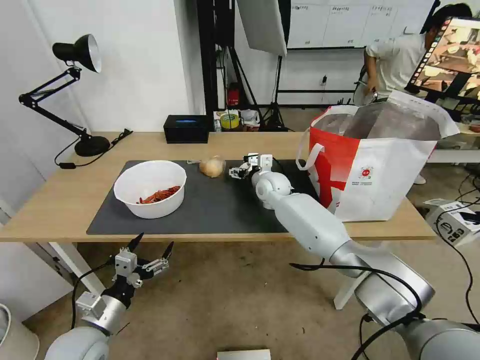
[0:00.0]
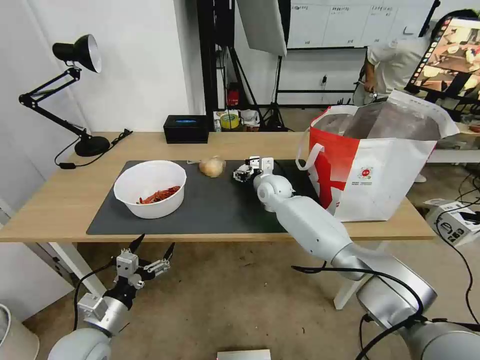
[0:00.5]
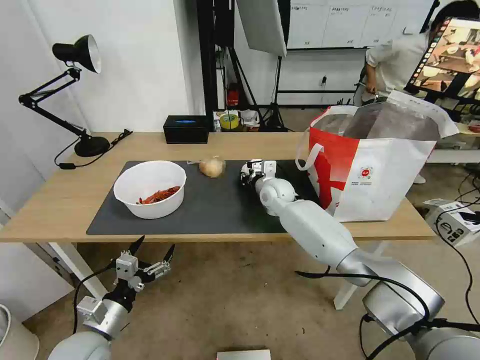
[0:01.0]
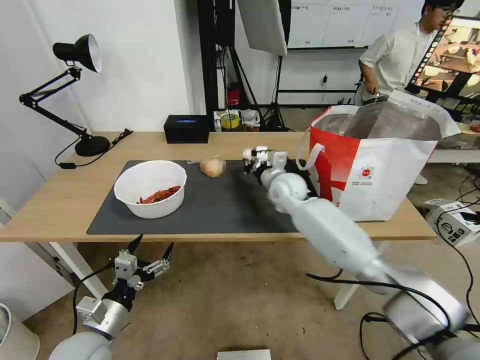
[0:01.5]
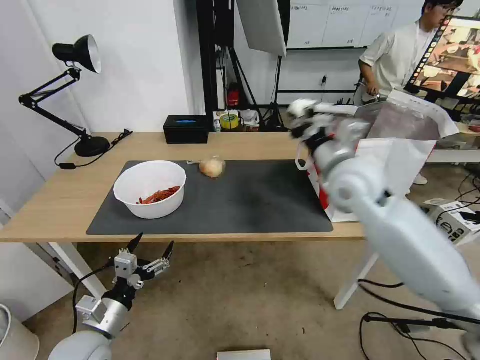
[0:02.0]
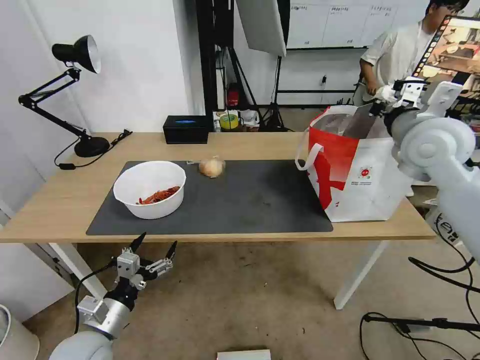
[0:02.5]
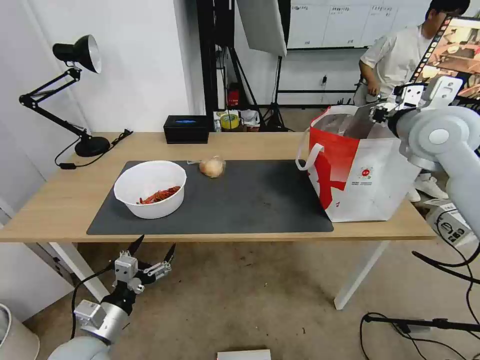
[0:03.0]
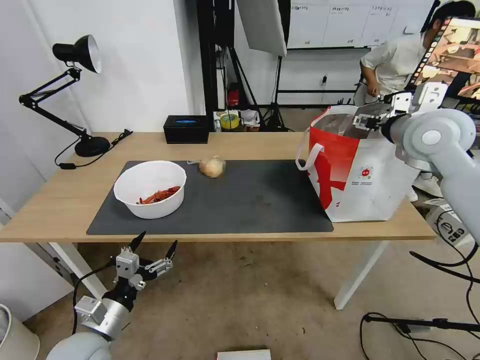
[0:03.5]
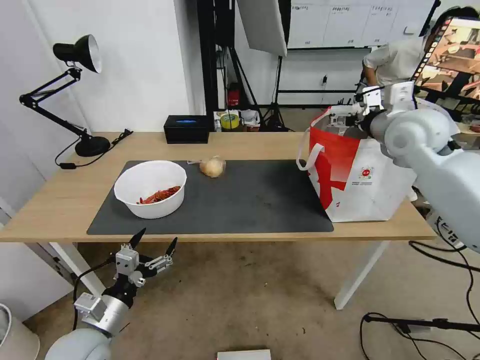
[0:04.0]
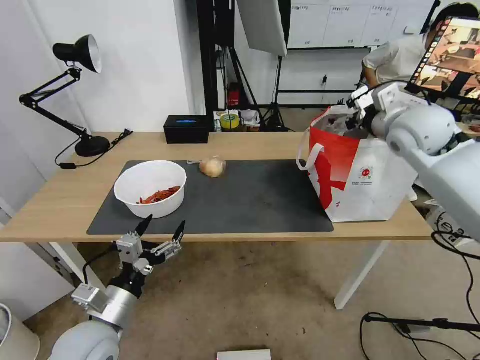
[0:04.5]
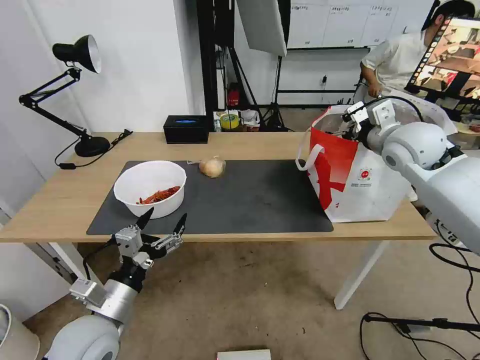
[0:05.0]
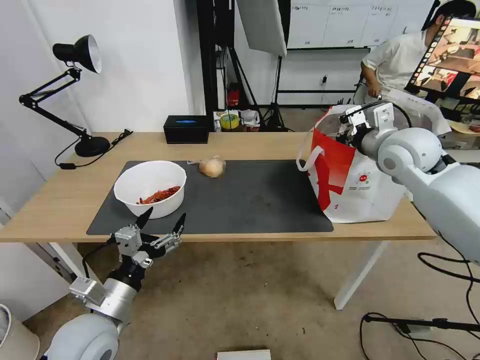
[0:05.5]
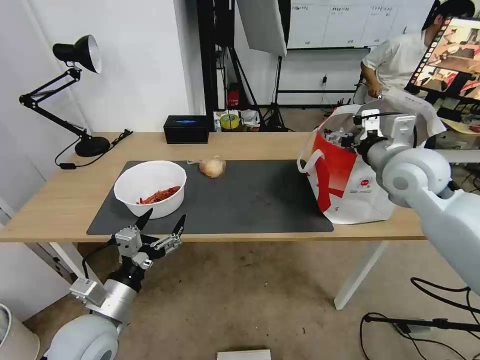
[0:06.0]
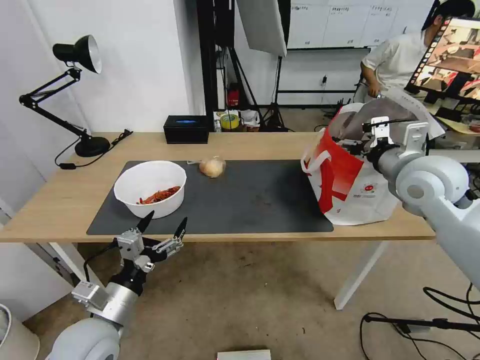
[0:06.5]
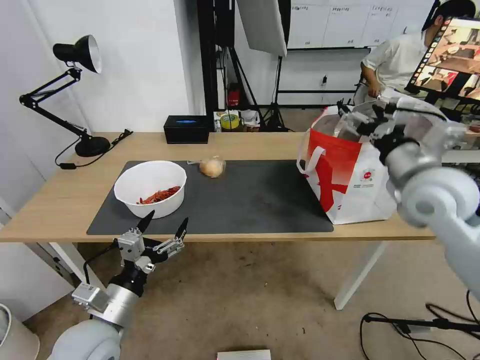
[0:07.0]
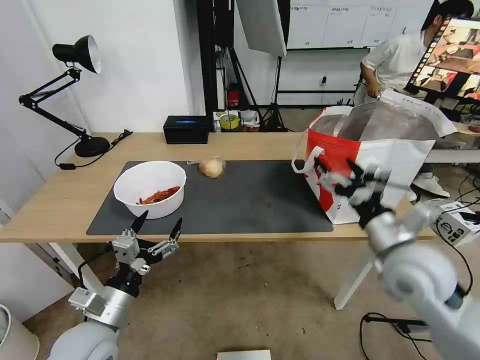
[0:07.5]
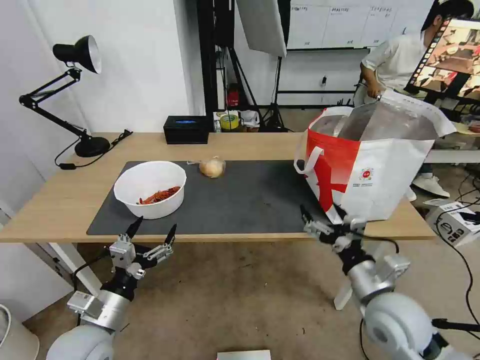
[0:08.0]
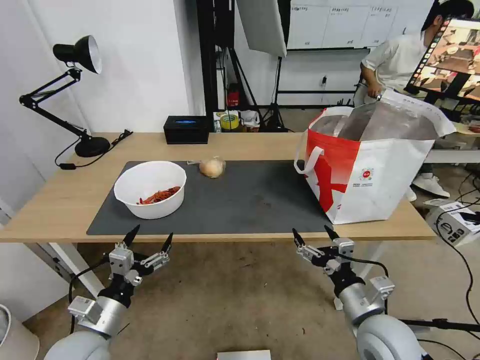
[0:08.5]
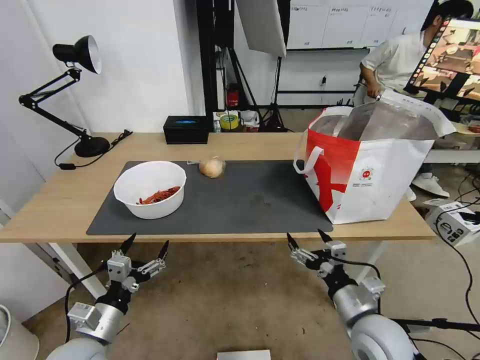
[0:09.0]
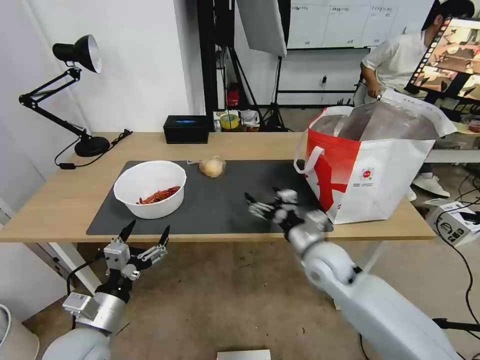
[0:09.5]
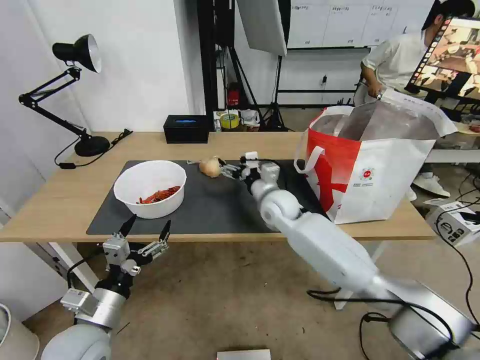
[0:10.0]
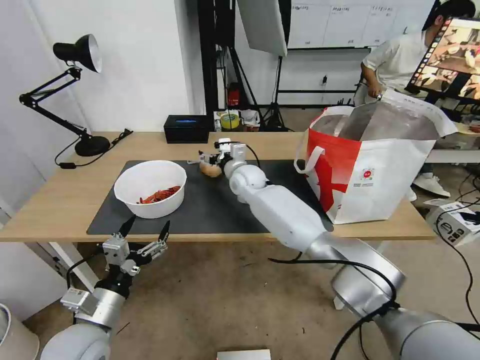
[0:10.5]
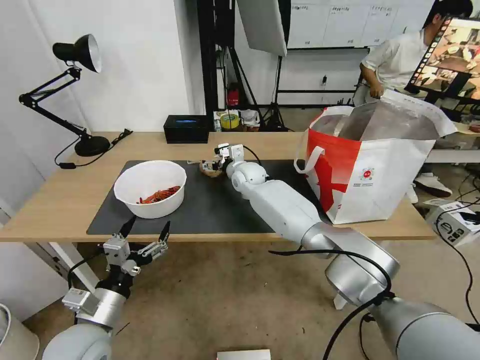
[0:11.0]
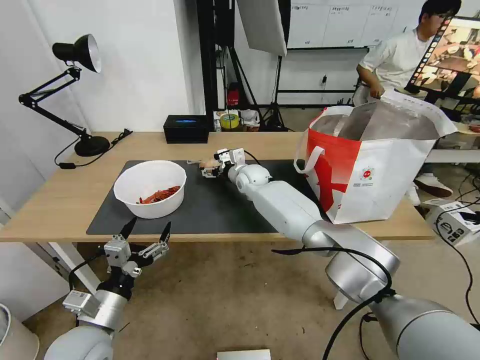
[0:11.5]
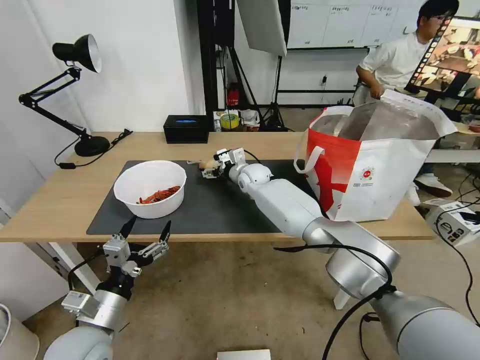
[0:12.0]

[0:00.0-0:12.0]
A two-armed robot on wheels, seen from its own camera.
Task of the whole recording: Pick up the trash from the table and place it into the takeout bag.
0:00.0 to 0:02.0: The right gripper moves upward, backward and to the right, approximately 25 cm, and closes its fingers.
0:02.0 to 0:04.0: The right gripper shifts approximately 15 cm to the right, forward and upward, and opens.
0:04.0 to 0:06.0: The right gripper moves backward, roughly 5 cm. Meanwhile the left gripper travels upward by about 5 cm.
0:06.0 to 0:08.0: The right gripper travels backward and downward by roughly 25 cm.
0:08.0 to 0:10.0: The right gripper is displaced forward and to the left by approximately 30 cm.
0:10.0 to 0:12.0: The right gripper goes some 15 cm forward and to the left.

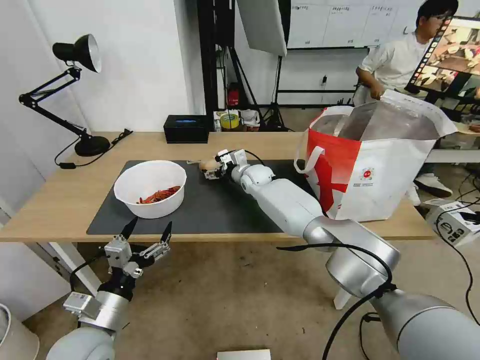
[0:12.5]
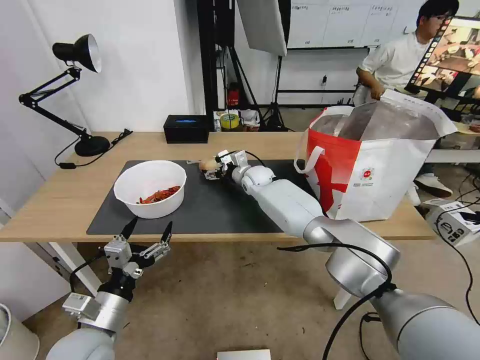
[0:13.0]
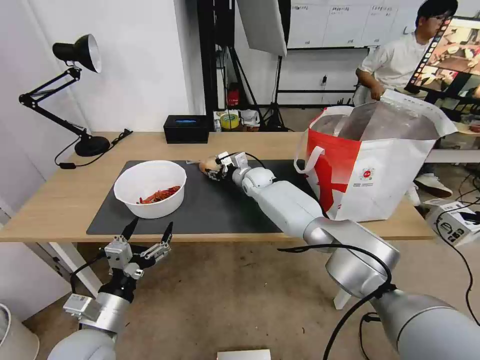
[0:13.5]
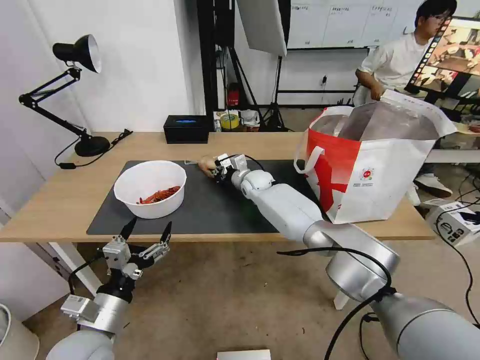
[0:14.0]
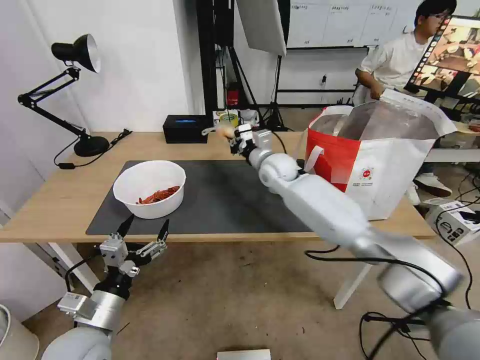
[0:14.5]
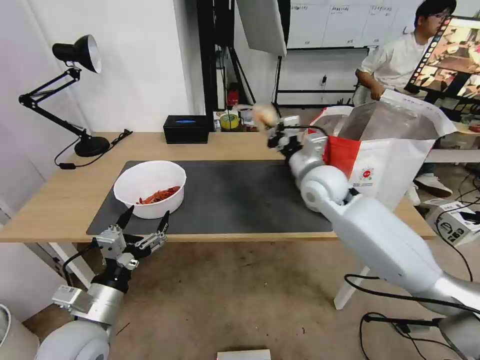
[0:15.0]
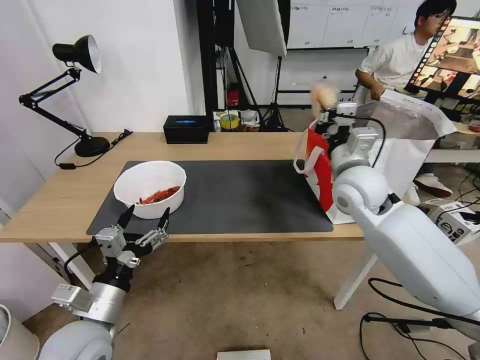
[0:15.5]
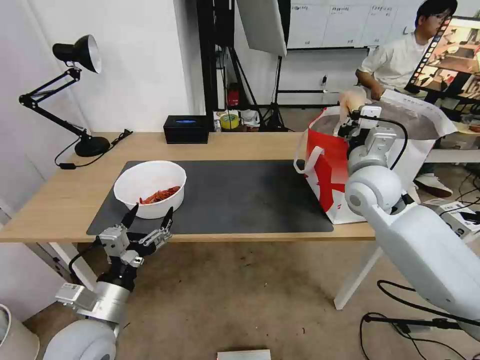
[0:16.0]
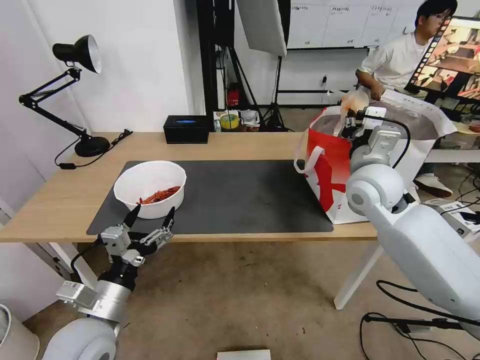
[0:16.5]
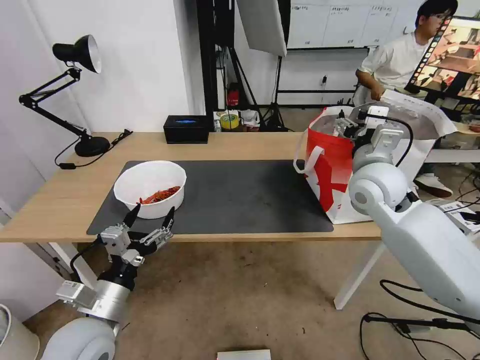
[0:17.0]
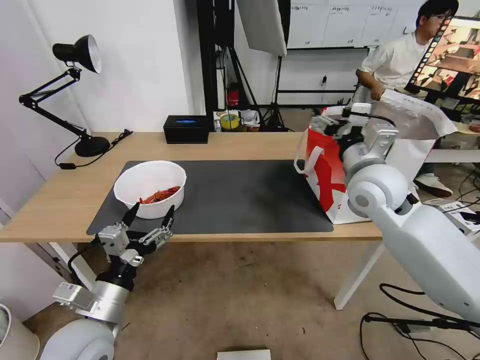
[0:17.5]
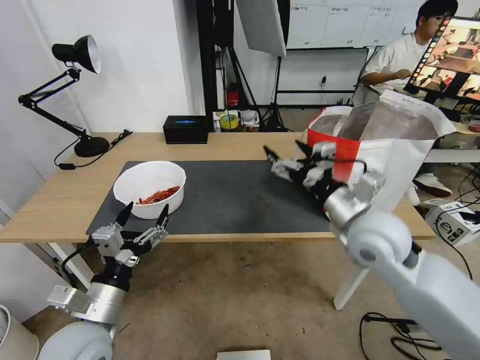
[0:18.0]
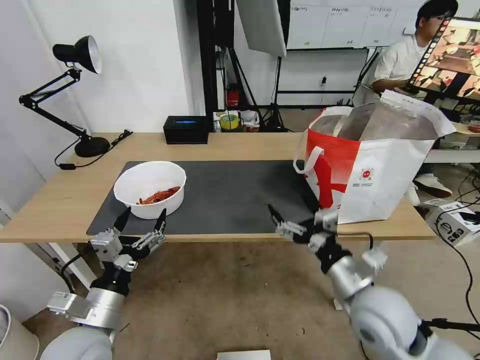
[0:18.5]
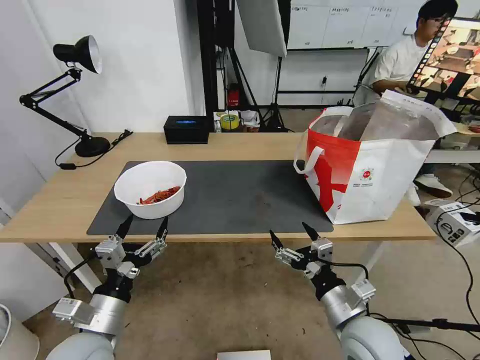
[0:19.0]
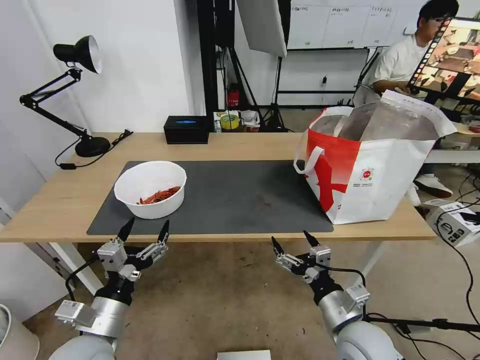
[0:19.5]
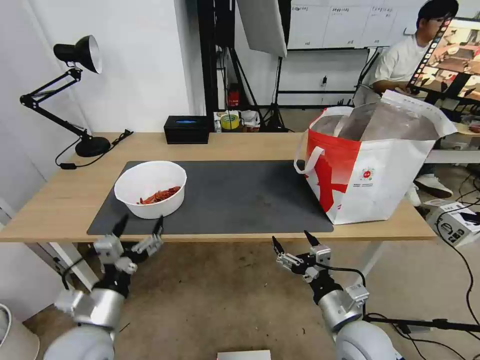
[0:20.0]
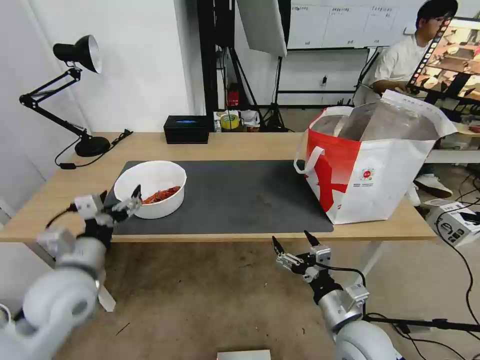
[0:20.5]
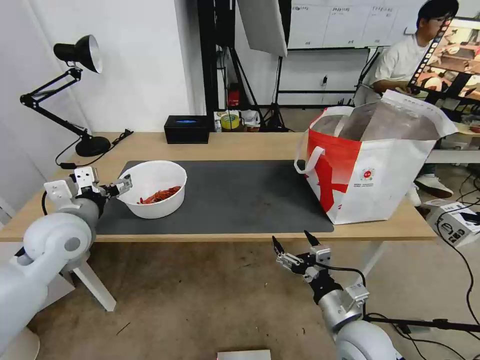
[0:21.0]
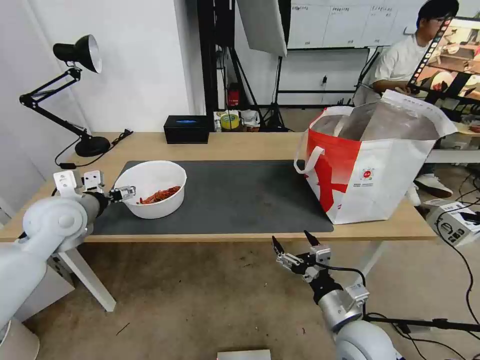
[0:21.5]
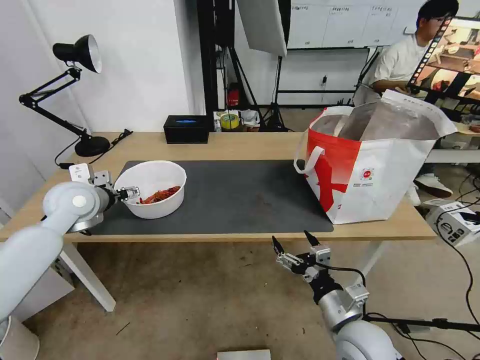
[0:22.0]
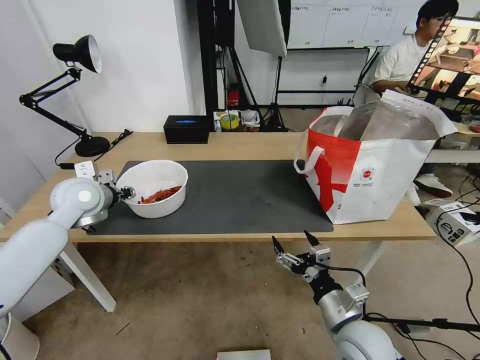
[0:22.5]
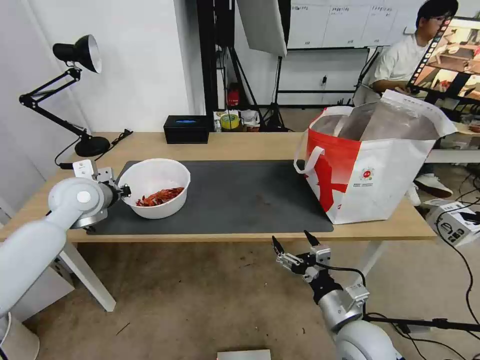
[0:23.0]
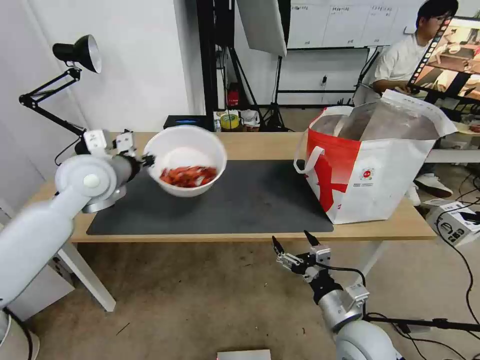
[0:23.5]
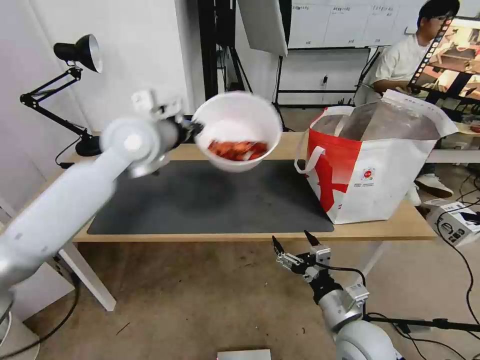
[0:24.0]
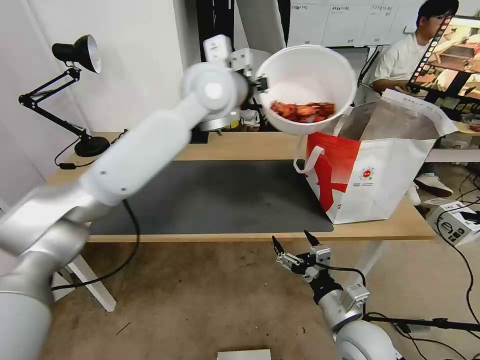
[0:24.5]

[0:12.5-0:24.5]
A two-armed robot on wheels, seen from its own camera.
Task of the whole recording: Pick up the trash from the table and place it into the takeout bag.
0:12.5 to 0:14.5: The right gripper heads upward and backward, covering roughly 10 cm, and closes its fingers.
0:14.5 to 0:16.5: The right gripper moves to the right, backward and upward, some 20 cm, and opens its fingers.
0:16.5 to 0:18.5: The right gripper shifts roughly 25 cm backward and downward, and opens up.
0:18.5 to 0:20.5: The left gripper shifts approximately 10 cm forward and upward, while the right gripper heads downward, covering some 10 cm.
0:20.5 to 0:22.5: The left gripper moves forward, some 20 cm, and closes.
0:22.5 to 0:24.5: The left gripper shifts roughly 35 cm to the right and upward, and closes its fingers.

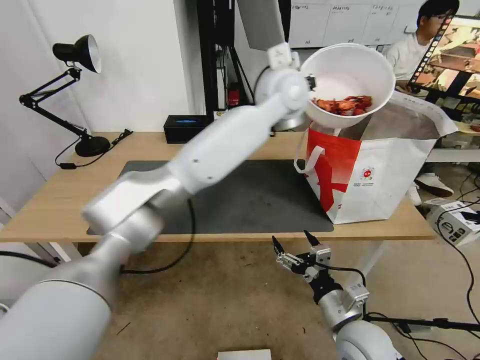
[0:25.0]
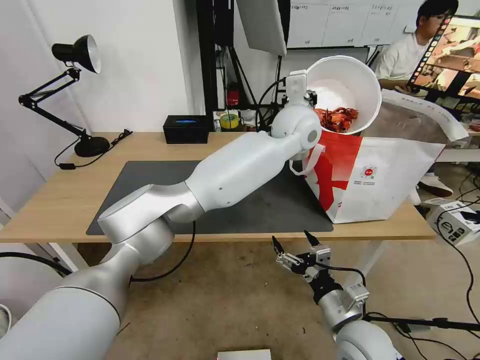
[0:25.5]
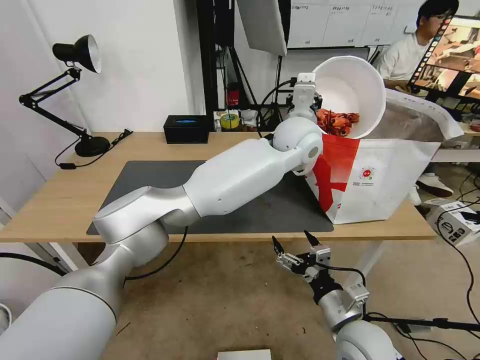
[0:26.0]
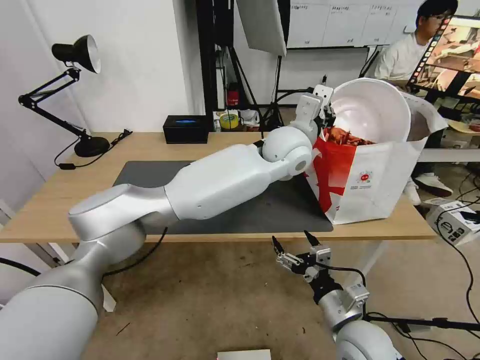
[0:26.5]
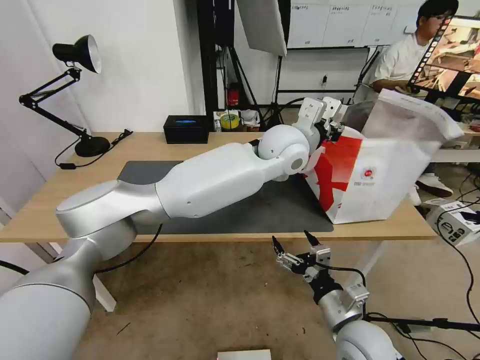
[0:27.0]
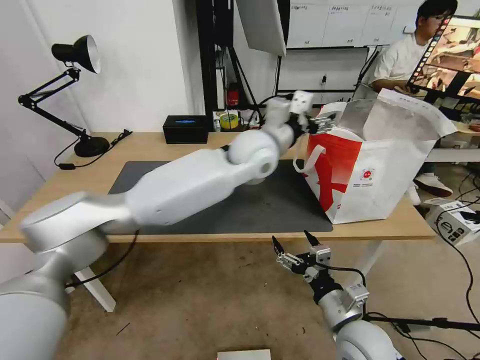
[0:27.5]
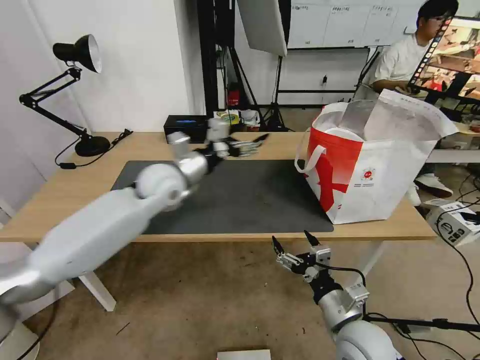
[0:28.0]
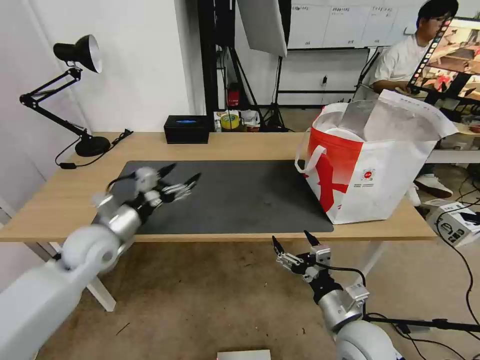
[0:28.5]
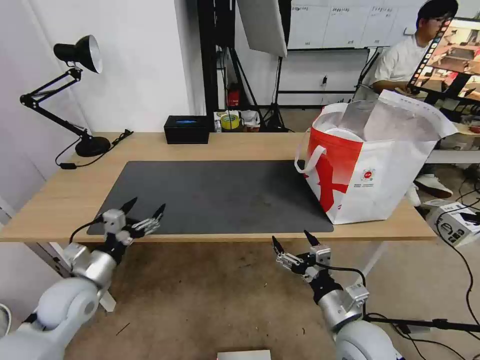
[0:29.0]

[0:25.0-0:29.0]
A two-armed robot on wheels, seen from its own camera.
Task of the whole recording: Pick up the trash from the table and place it into the takeout bag.
0:25.0 to 0:27.0: The left gripper is displaced downward and backward by some 10 cm.
0:27.0 to 0:29.0: The left gripper heads to the left, downward and backward, covering some 50 cm, and opens.
